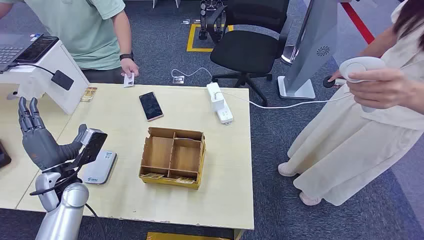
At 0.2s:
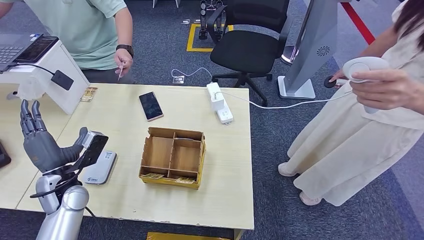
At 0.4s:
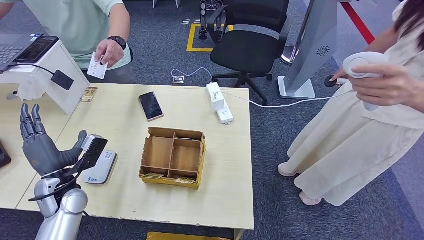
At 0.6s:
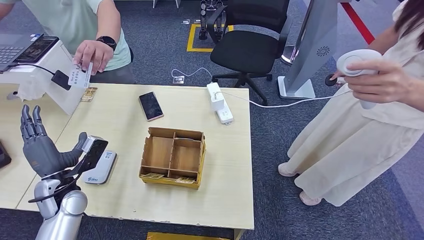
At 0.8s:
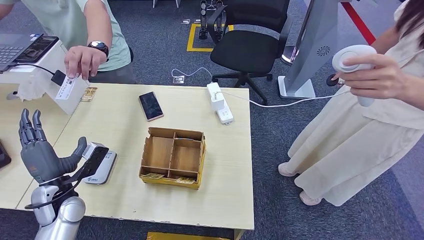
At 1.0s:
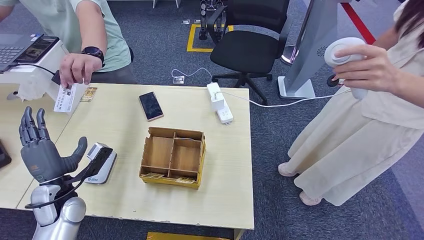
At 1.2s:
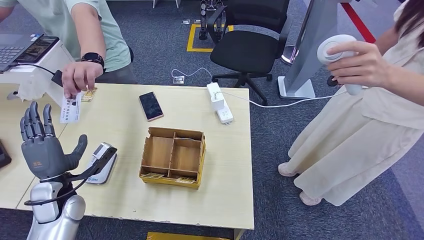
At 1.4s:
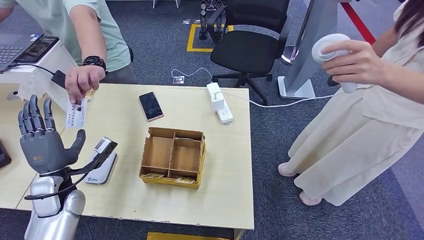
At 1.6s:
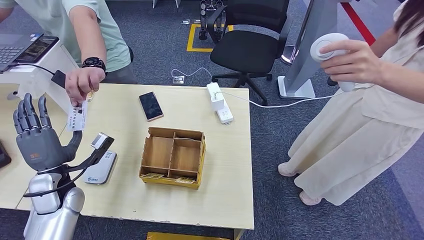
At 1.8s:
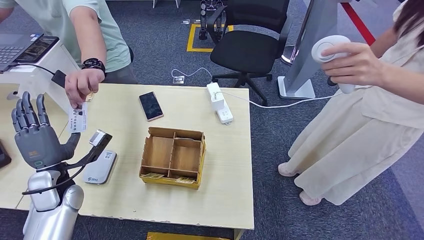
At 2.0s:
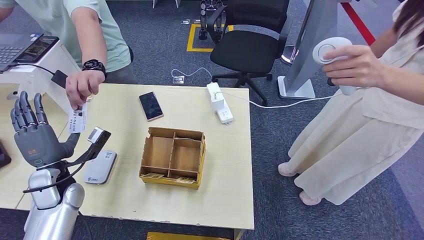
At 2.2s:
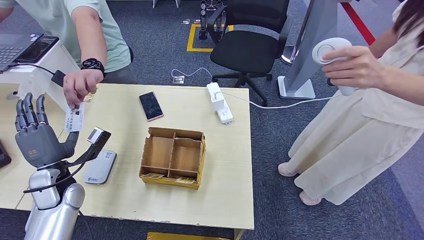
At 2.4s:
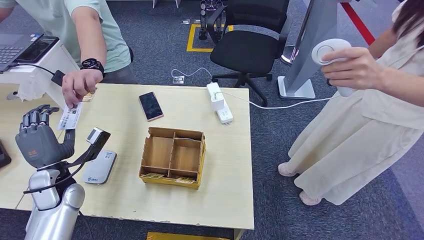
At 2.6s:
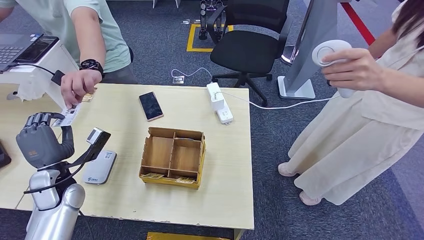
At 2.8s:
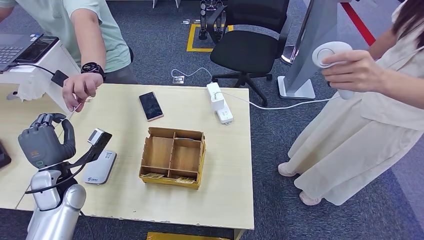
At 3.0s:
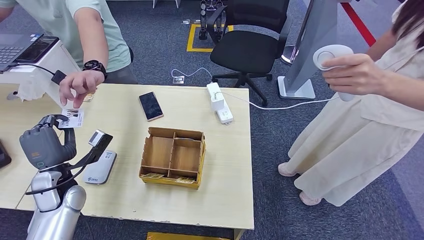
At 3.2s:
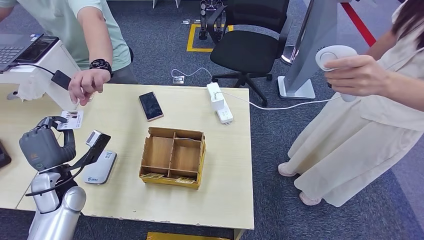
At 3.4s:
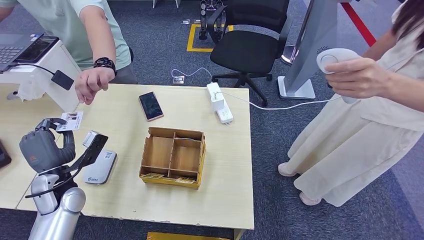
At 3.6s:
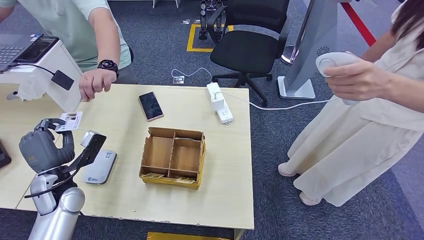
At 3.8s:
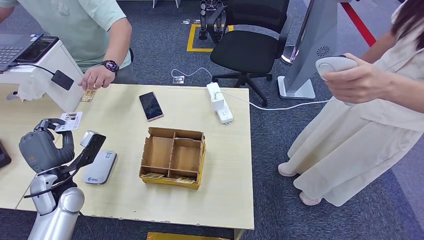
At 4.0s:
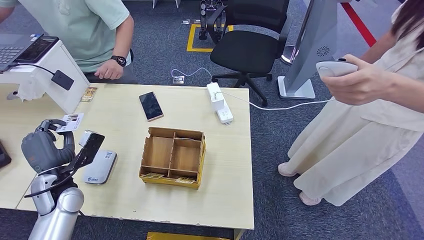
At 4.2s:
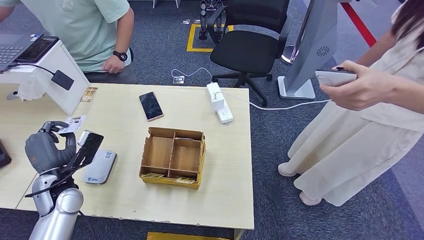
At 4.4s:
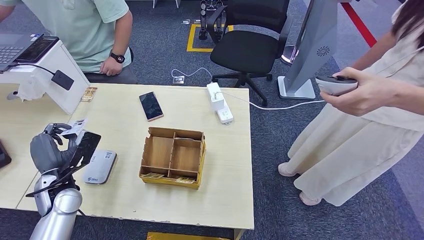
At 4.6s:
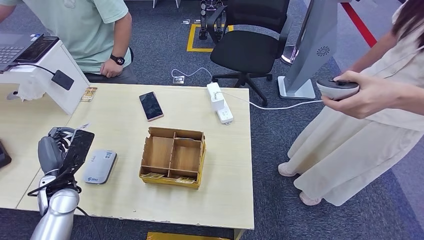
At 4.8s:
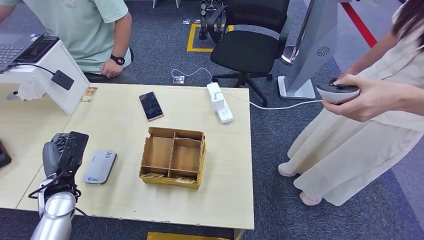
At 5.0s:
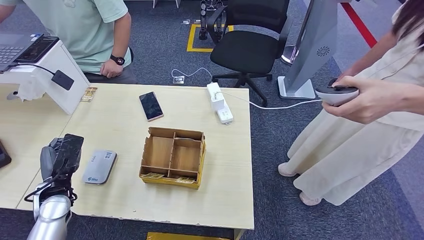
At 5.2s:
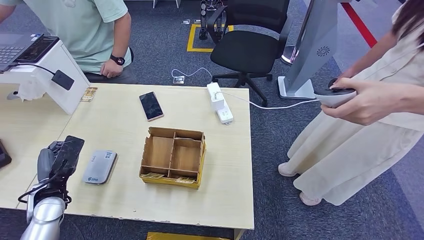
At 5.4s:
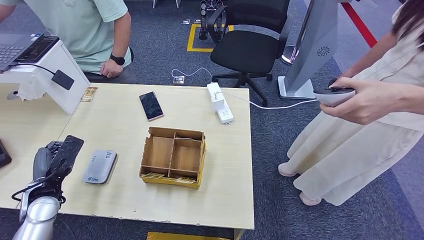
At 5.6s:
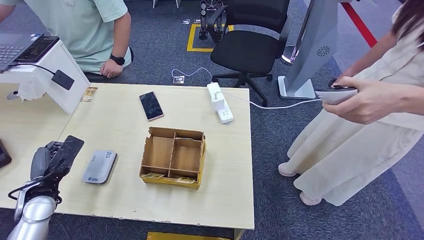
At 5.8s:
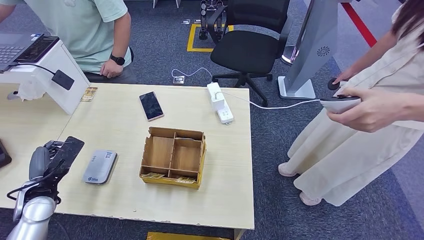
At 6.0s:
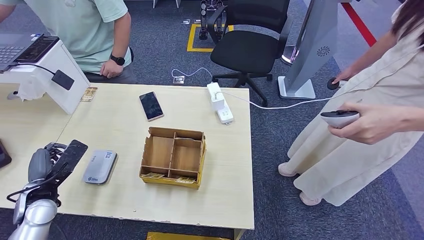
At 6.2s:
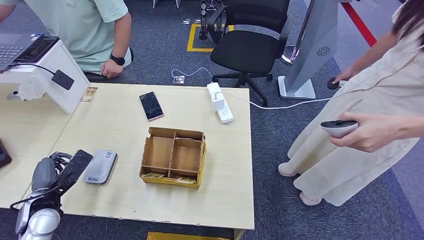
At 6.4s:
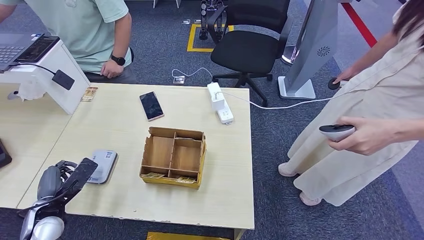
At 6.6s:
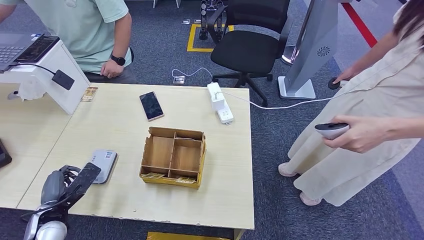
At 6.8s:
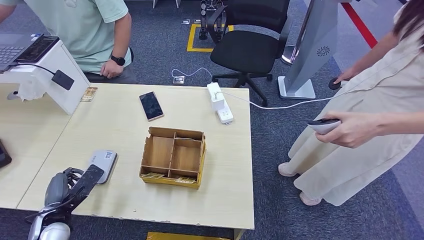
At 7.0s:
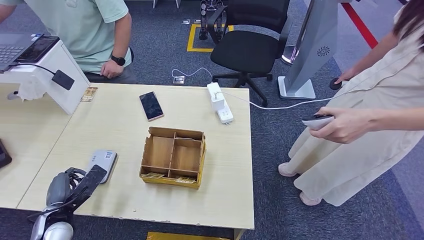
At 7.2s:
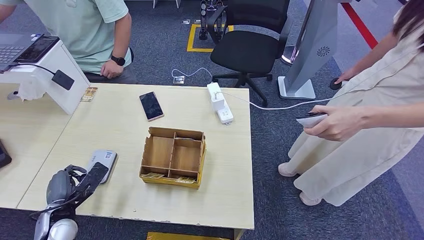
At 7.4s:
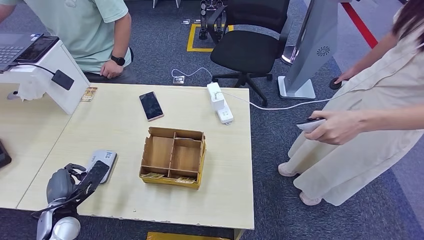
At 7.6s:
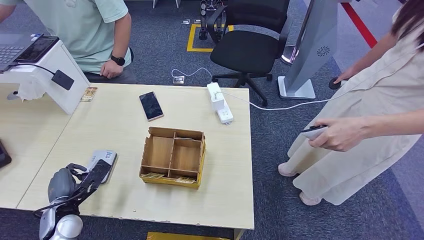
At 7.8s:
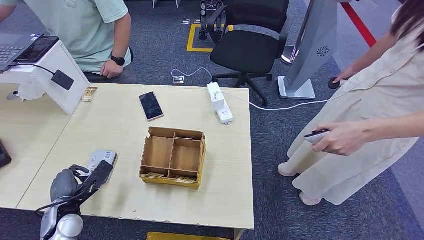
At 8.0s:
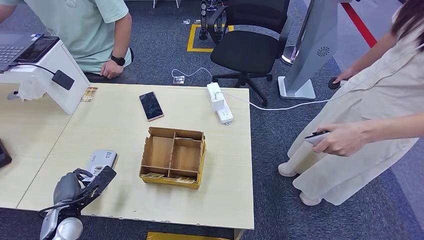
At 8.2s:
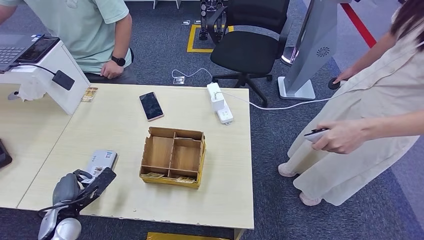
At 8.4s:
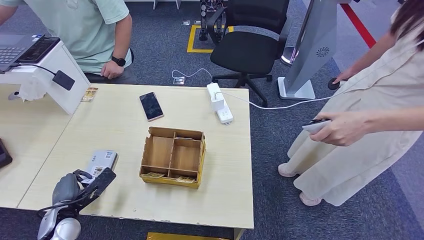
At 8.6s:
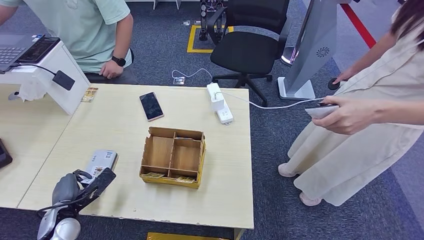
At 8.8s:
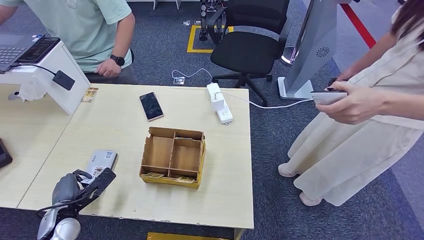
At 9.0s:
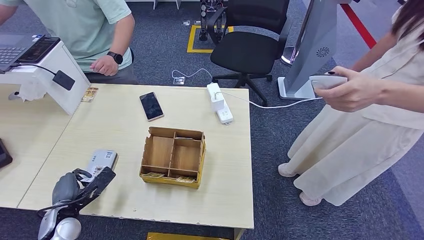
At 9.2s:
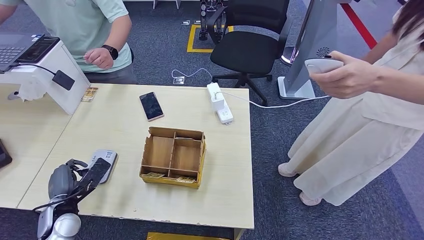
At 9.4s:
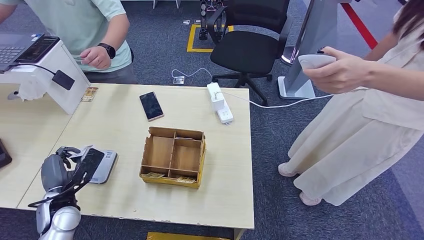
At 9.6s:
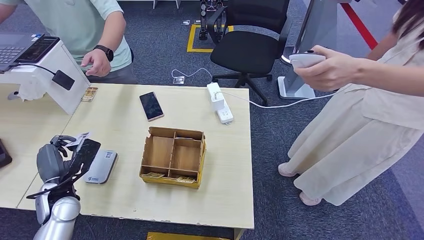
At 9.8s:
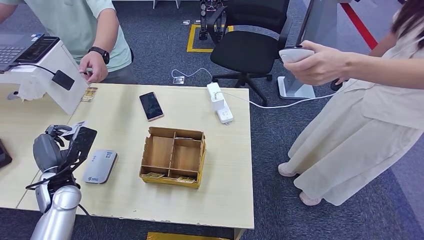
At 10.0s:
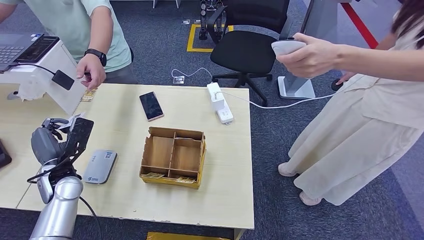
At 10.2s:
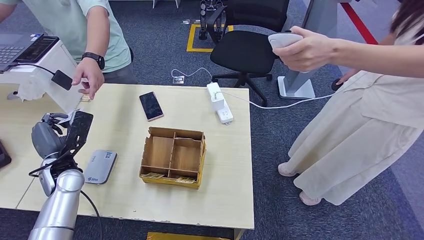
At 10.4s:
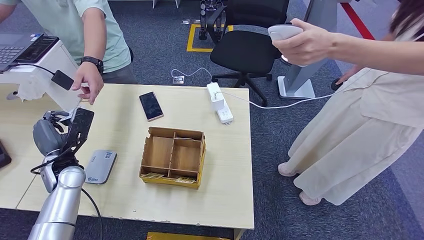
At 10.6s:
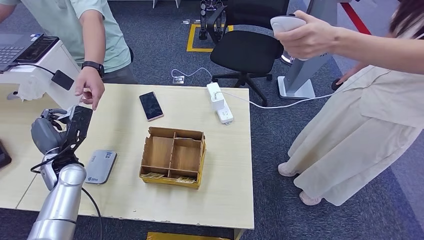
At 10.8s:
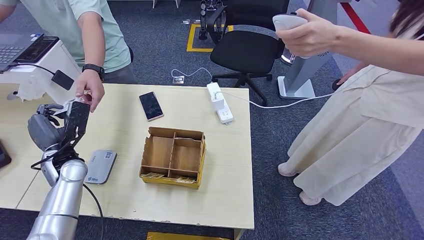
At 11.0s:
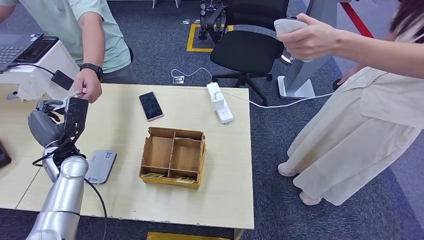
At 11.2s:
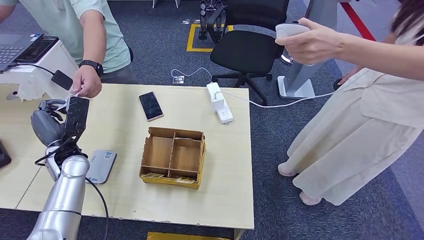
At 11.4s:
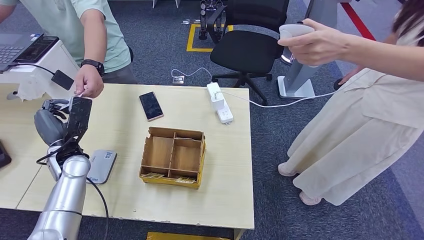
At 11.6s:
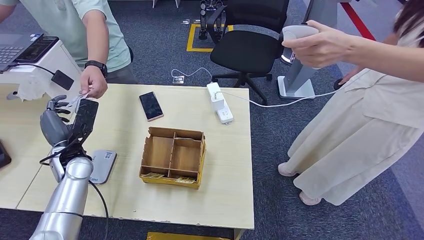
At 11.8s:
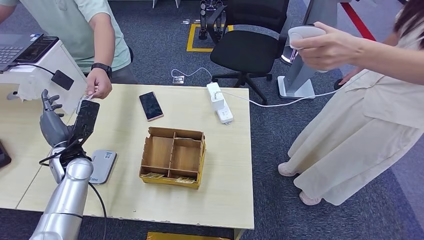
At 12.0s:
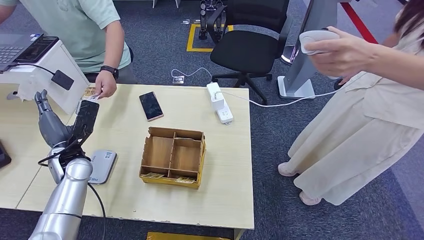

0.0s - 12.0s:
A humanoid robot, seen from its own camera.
Step, 0.0s - 2.8s: Take the ID card from the person's hand.
Step, 3.2s - 8.0s: Place the ID card on the card reader.
Step, 8.2s - 11.6s: Hand the ID card to the person.
1.6s - 3.0s: There are only small adjustments of the hands.
4.4s - 6.0s: The left hand shifts by roughly 5 cm.
6.0s - 7.6s: The left hand heads downward, covering approximately 5 cm.
7.6s - 9.0s: There are only small adjustments of the hands.
10.4s - 12.0s: The hands move only a little.

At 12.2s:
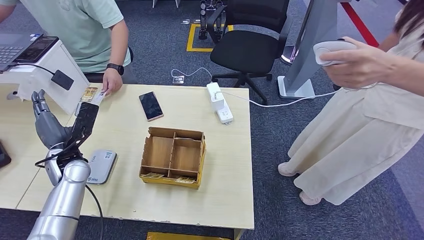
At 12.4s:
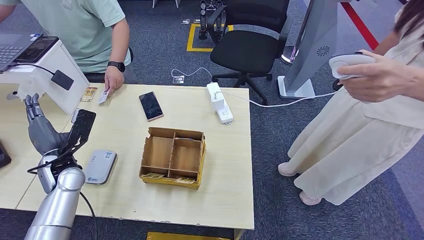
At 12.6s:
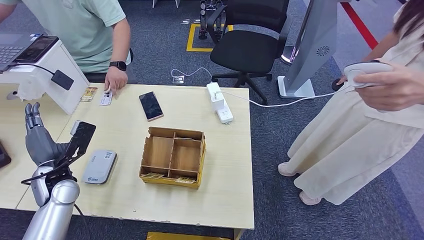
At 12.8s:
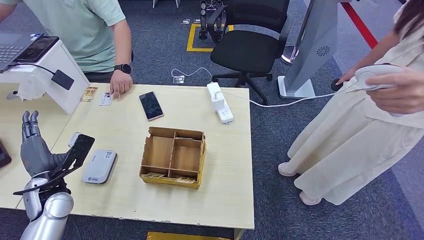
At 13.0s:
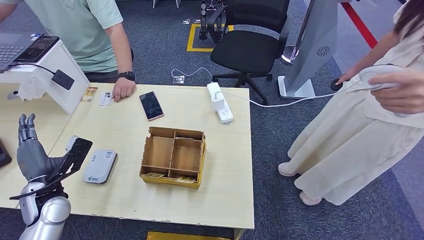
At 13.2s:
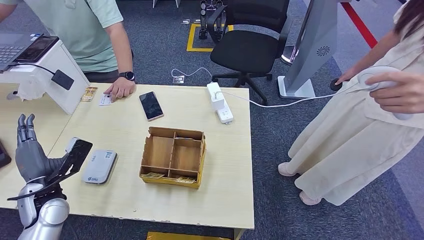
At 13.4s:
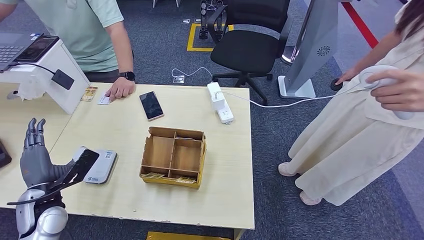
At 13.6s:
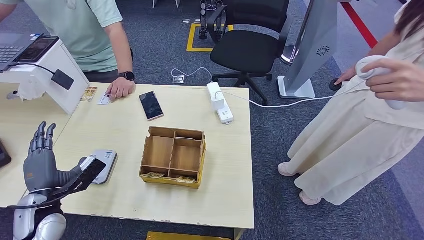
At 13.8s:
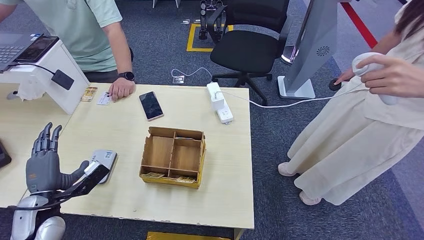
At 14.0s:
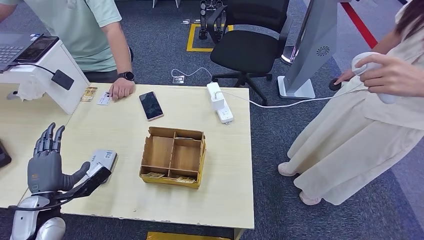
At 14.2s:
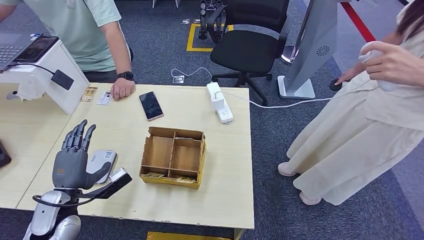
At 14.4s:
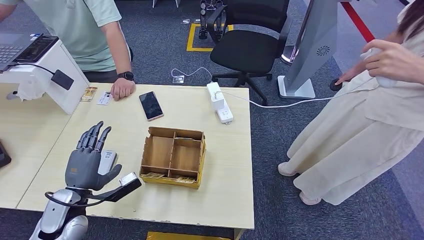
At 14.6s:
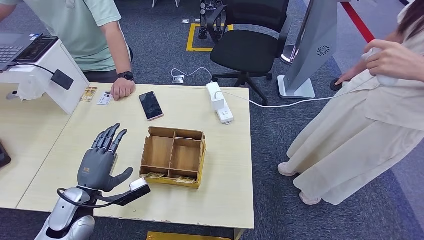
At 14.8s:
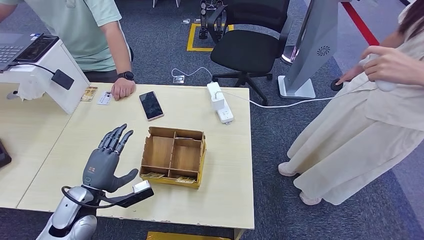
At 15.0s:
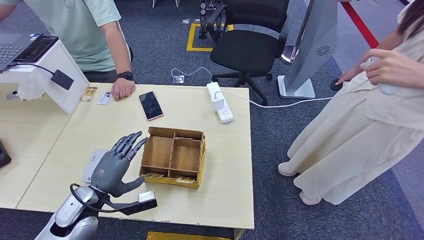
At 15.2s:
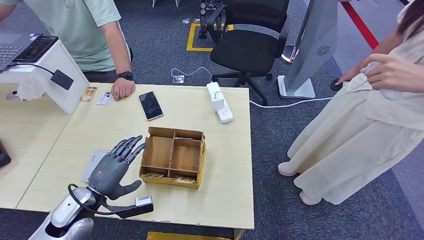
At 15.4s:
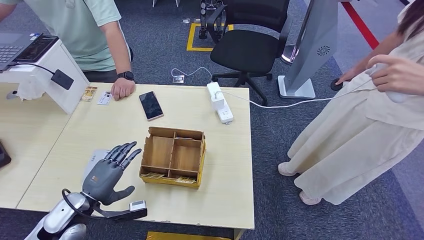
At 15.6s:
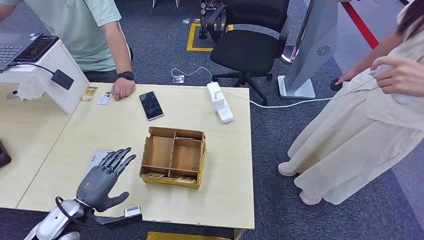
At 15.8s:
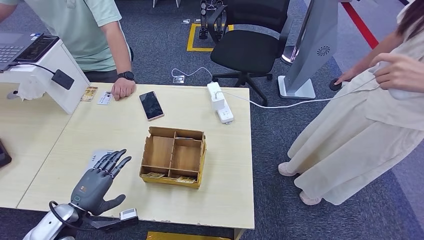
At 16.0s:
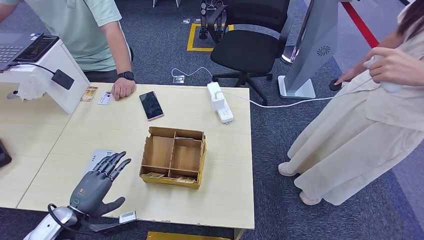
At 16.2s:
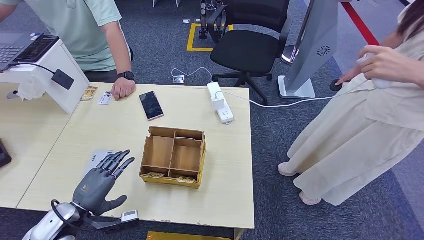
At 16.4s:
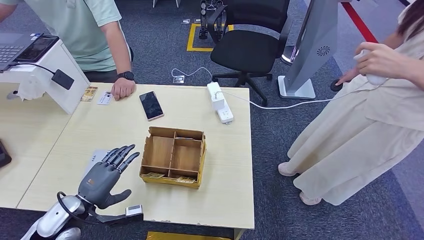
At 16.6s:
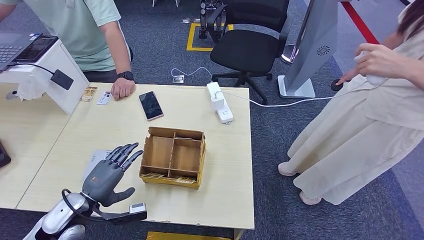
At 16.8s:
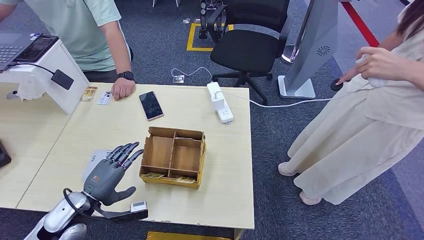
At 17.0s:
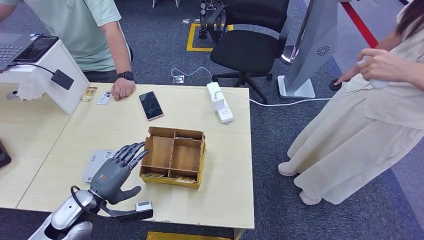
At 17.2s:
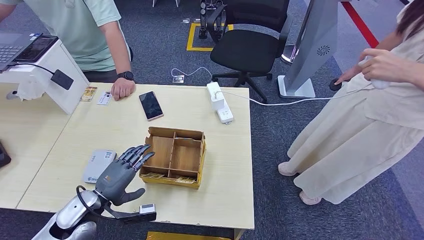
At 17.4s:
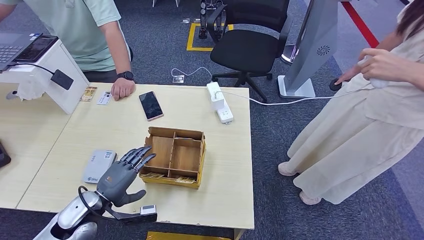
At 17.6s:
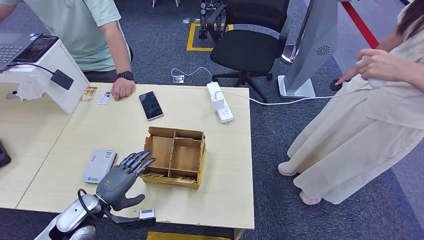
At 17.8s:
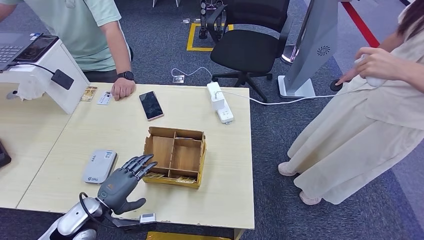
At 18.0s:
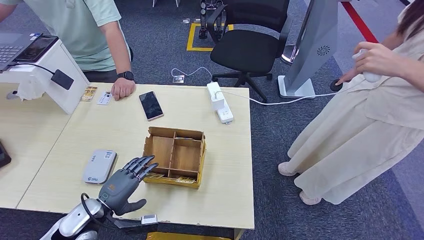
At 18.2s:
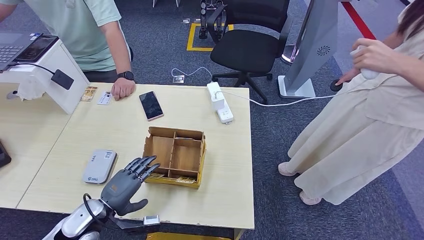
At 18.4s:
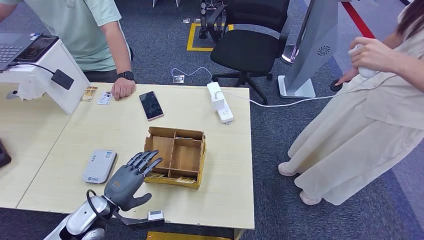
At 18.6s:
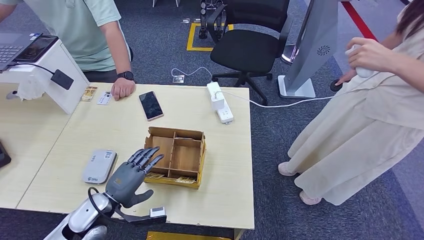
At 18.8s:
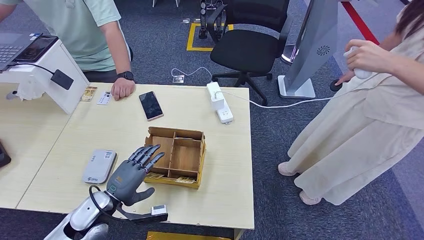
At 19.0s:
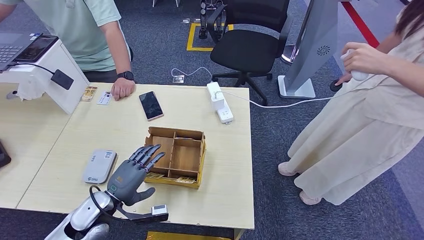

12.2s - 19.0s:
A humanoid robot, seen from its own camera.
12.2s - 13.6s: The left hand is displaced backward by approximately 10 cm.
13.6s - 15.0s: The left hand travels to the right by roughly 10 cm.
15.0s - 16.2s: The left hand ends up about 5 cm from where it was.
16.2s - 17.6s: There are only small adjustments of the hands.
17.6s - 19.0s: The hands make only small movements.
